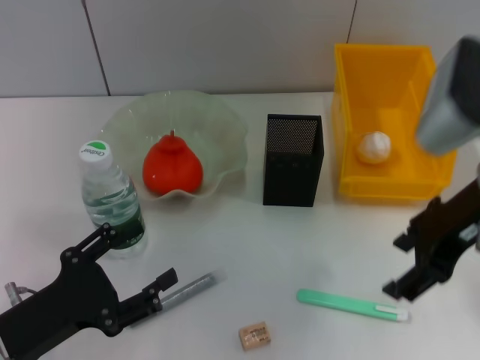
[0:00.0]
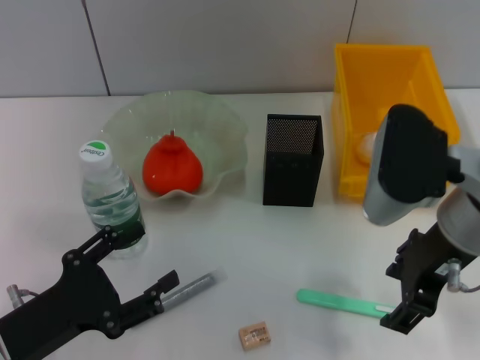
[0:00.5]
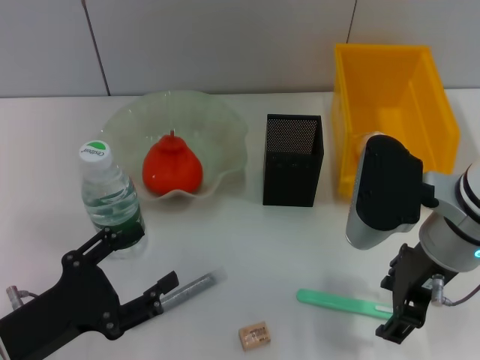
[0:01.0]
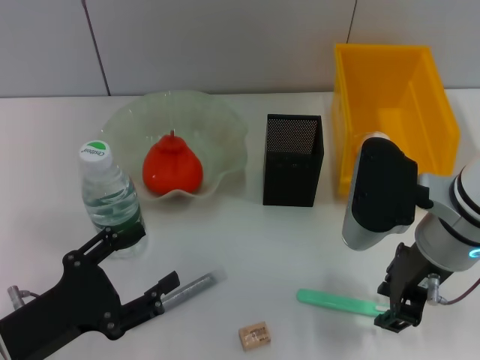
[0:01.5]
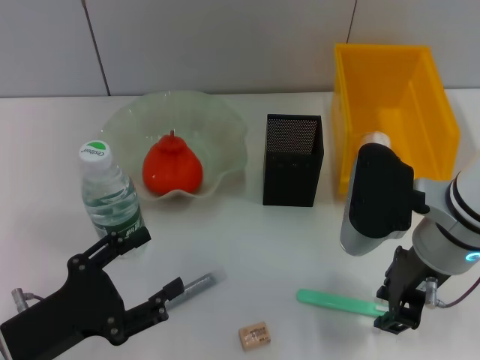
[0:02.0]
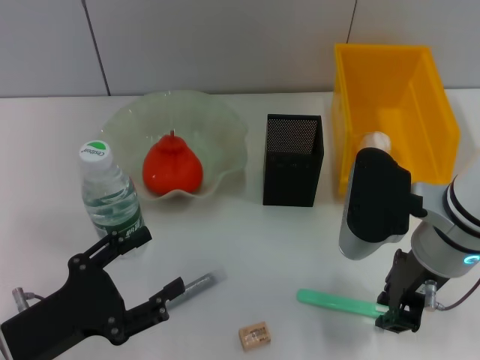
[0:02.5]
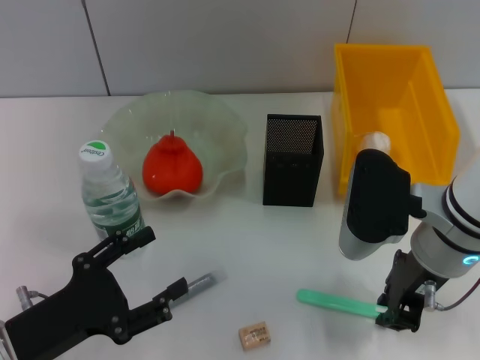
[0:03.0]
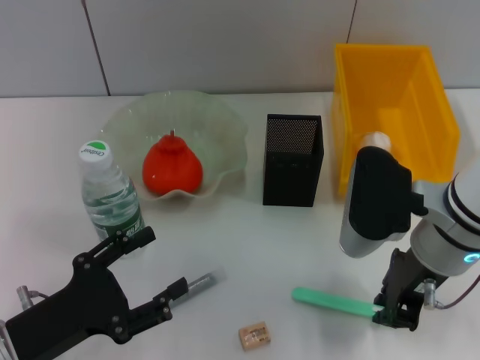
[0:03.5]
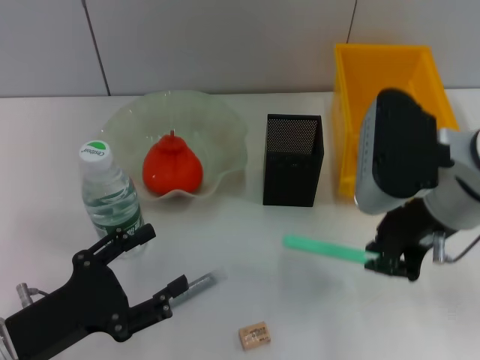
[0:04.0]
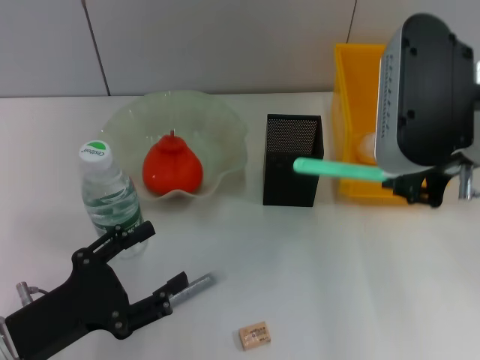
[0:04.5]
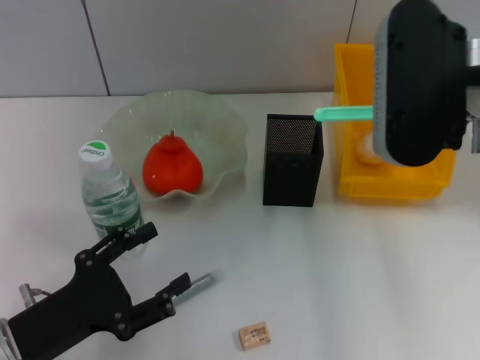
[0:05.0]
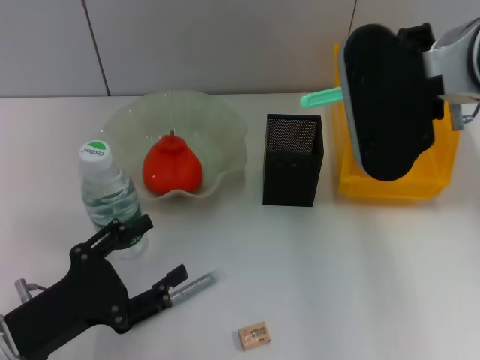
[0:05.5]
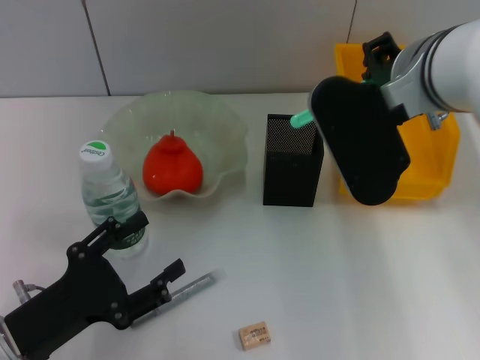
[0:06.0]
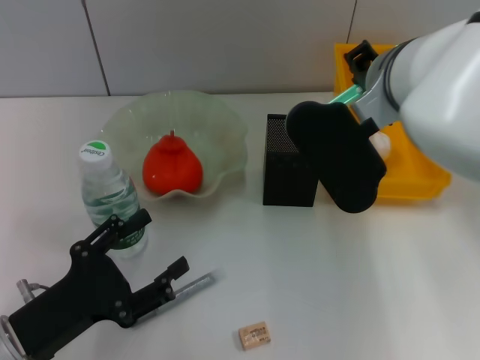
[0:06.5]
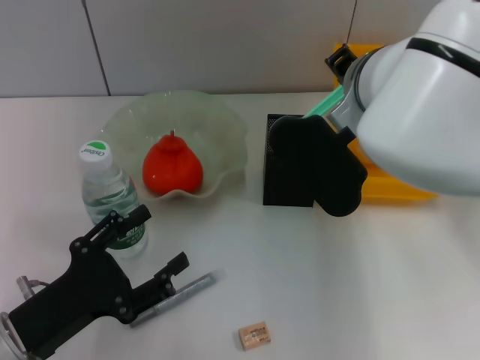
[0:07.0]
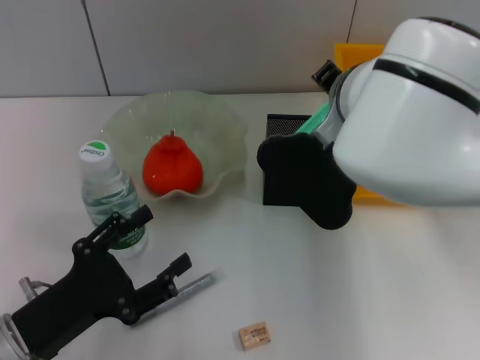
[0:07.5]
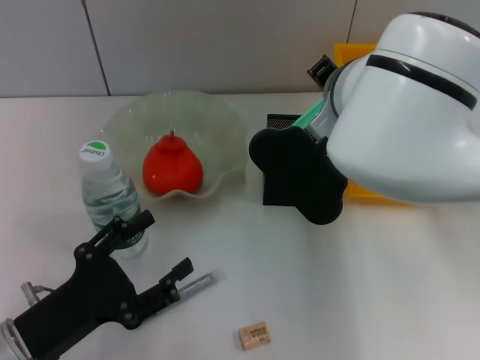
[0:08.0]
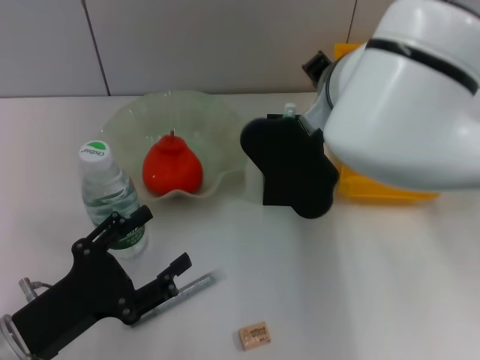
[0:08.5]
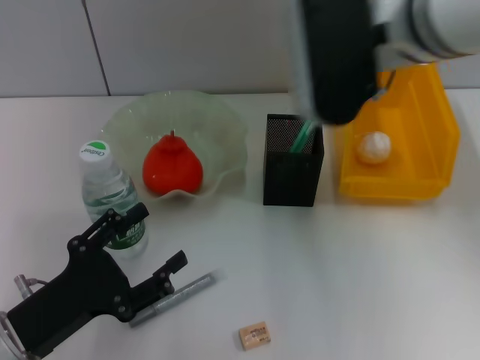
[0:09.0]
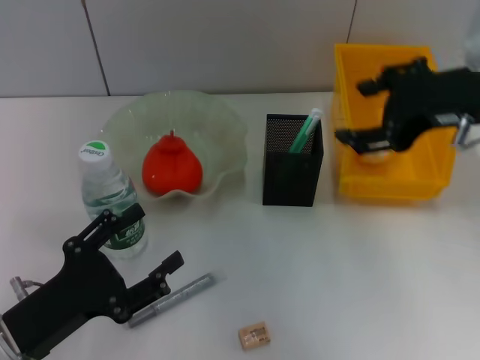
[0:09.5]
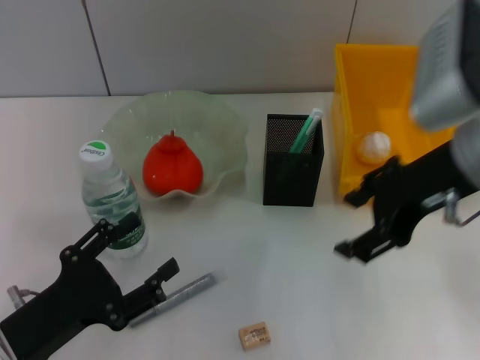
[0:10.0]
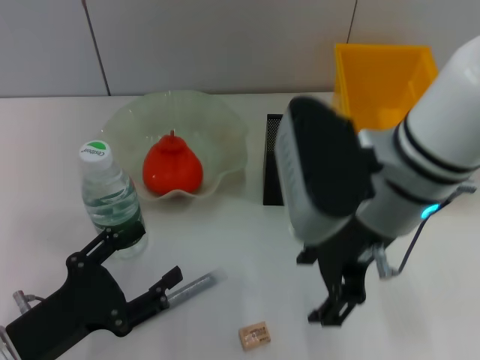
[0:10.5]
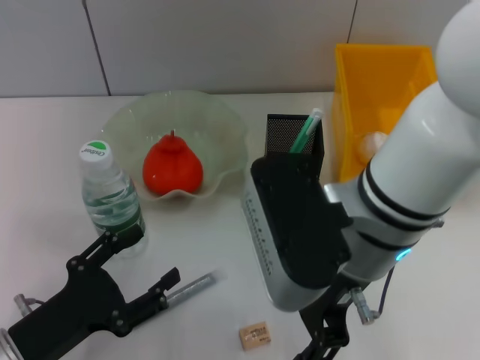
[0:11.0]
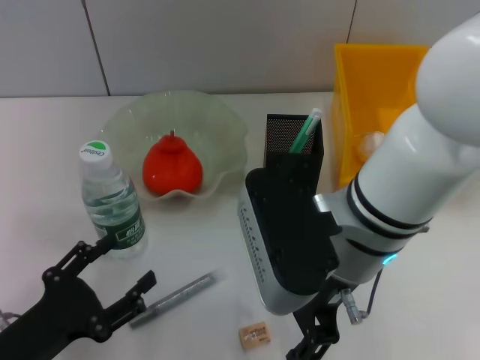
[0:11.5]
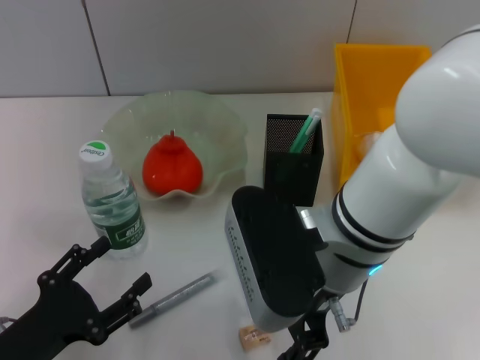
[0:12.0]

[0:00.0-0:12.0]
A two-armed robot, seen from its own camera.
Step, 0:00.0 to 0:03.0: Grab the blue utility knife with the right hand.
Step, 0:03.5 to 0:08.5: Place the blue utility knife into the pen holder with the right hand.
0:00.0 to 0:02.0: The right gripper travels downward by roughly 10 cm, and closes its fingers.
0:02.0 to 0:04.0: The right gripper shifts by approximately 5 cm, and closes up.
0:04.0 to 0:06.0: The right gripper ends up roughly 5 cm from where it was.
0:06.0 to 0:08.0: The right gripper travels to the left by some 5 cm.
0:08.0 to 0:10.0: The right gripper travels to the right by some 10 cm, and opens its fingers.
0:10.0 to 0:12.0: The right gripper shifts some 15 cm to the left and downward.

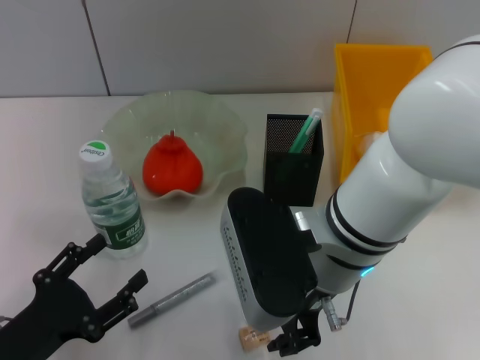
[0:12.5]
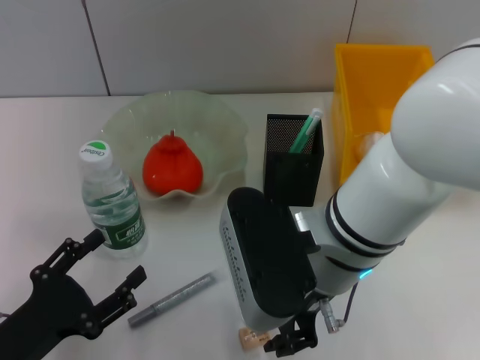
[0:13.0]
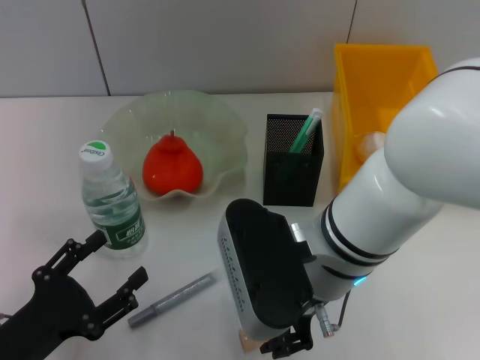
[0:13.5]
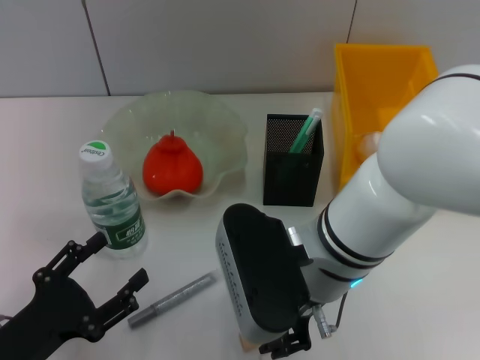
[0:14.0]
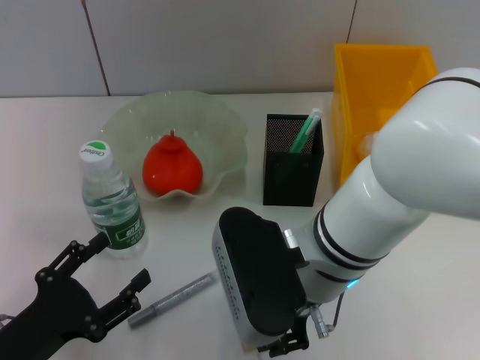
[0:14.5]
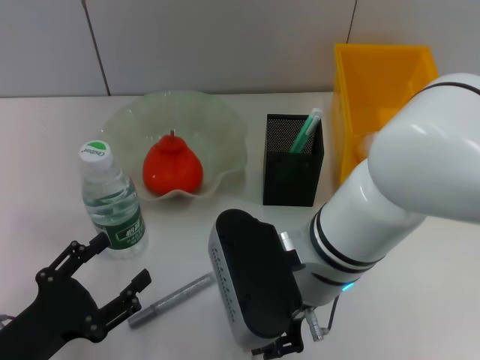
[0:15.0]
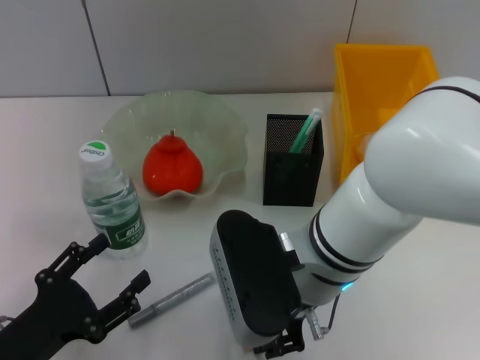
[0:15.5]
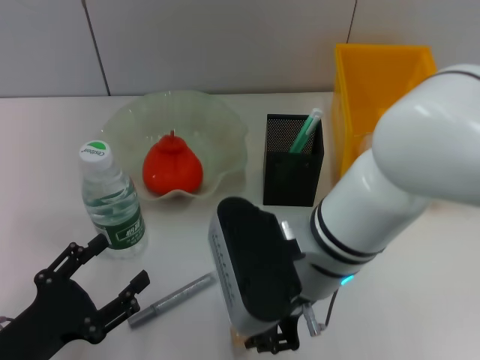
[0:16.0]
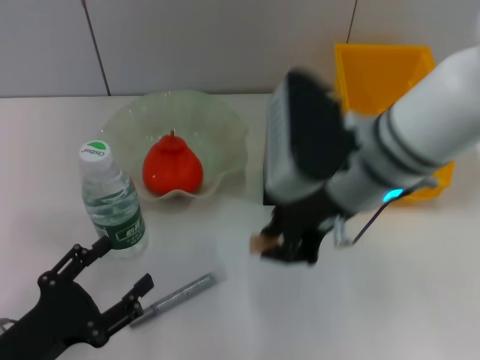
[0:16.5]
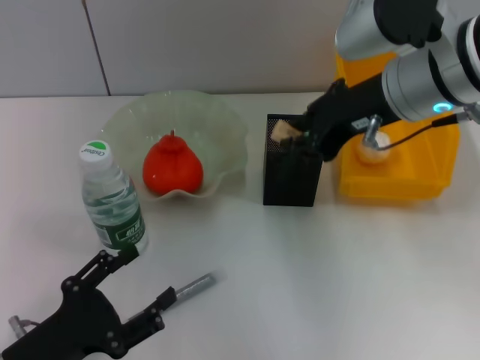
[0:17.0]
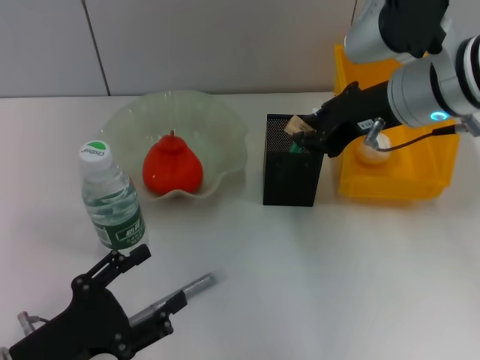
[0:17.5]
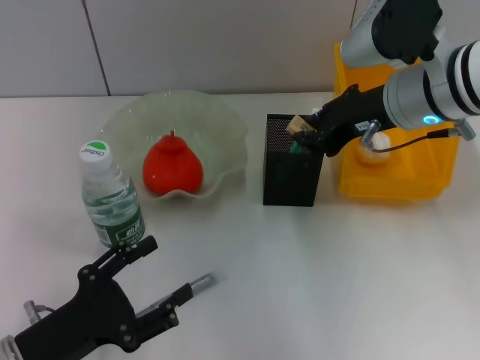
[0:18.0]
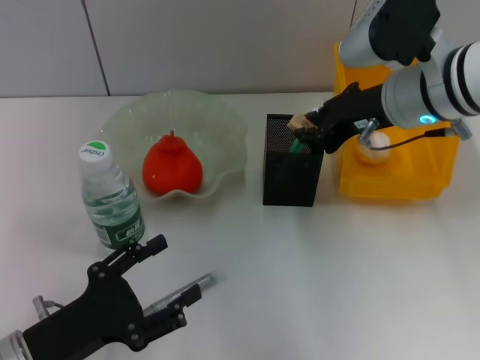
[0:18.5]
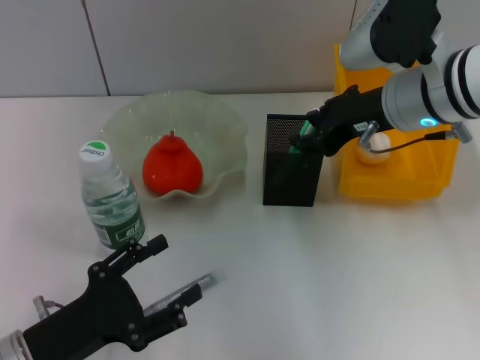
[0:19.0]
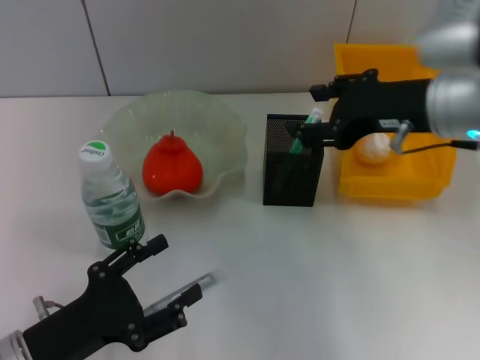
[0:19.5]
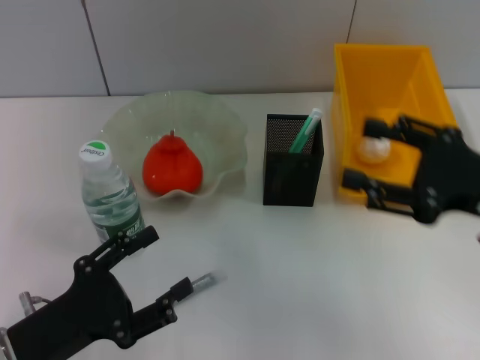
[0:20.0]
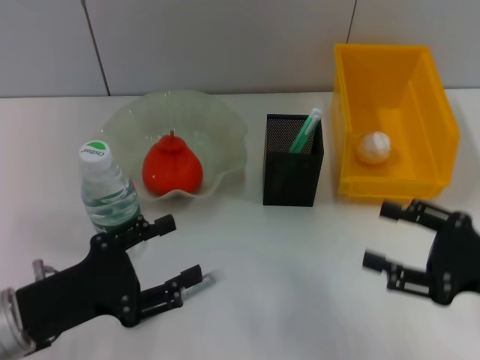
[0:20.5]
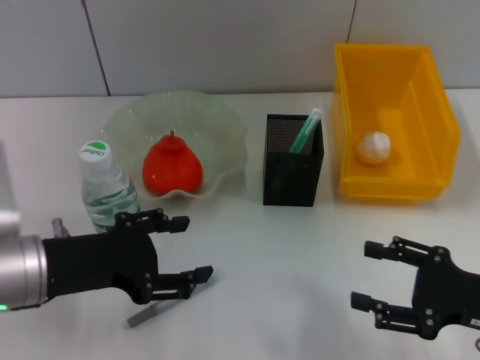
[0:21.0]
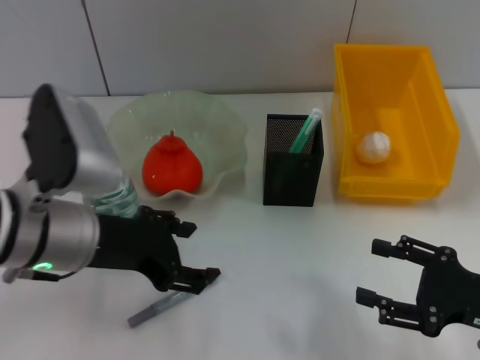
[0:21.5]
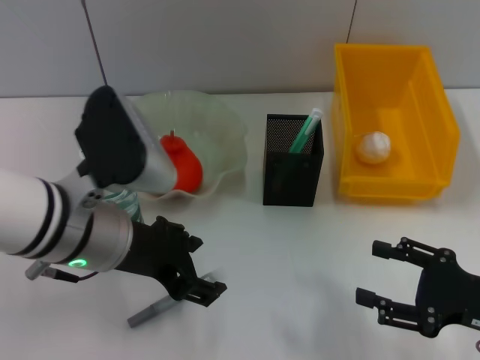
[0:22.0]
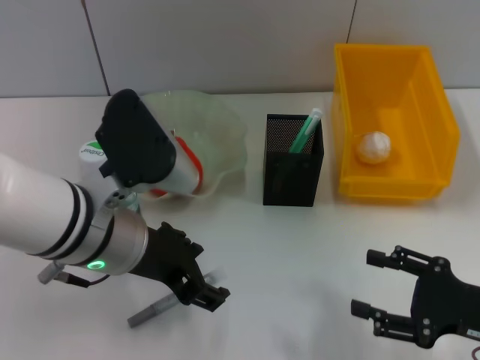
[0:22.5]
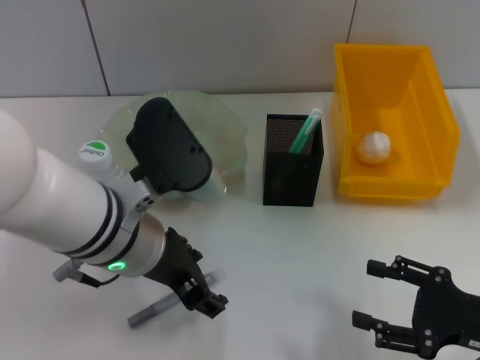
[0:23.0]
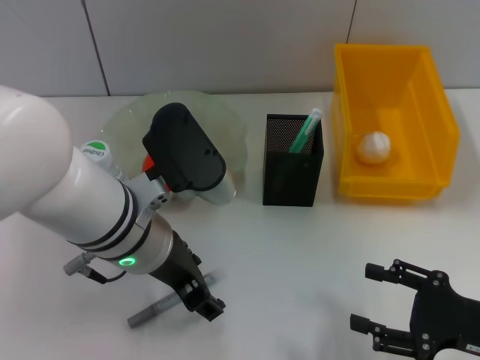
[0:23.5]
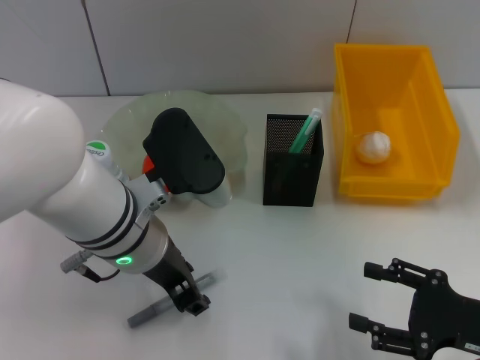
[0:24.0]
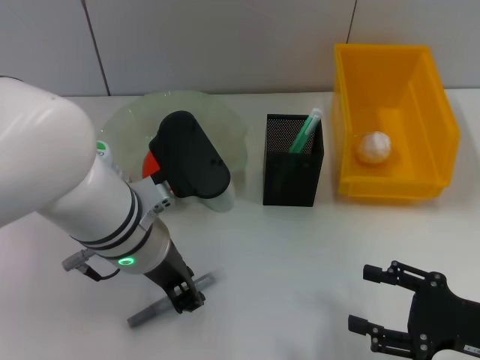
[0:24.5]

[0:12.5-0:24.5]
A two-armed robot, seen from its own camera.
Step, 0:12.5 to 0:15.5: Grab the eraser with the right hand.
Step, 0:16.0 to 0:18.5: Put the eraser into the pen holder with the right hand.
0:12.5 to 0:14.5: The right gripper closes.
0:14.5 to 0:16.5: The right gripper is displaced upward by some 5 cm.
0:16.5 to 0:18.5: The right gripper goes about 10 cm to the right and forward.
0:18.5 to 0:20.5: The right gripper moves backward, to the right and downward, about 25 cm, and opens up.
0:20.5 to 0:22.5: The left gripper is displaced to the right, upward and forward by some 15 cm.
0:22.5 to 0:24.5: The left gripper closes its fingers.

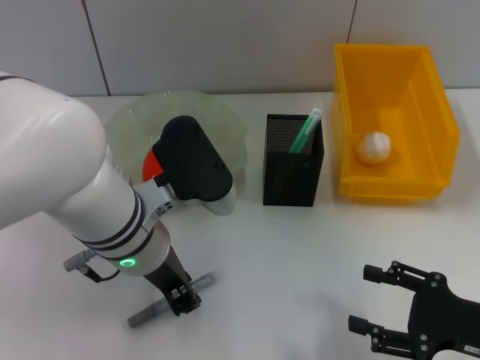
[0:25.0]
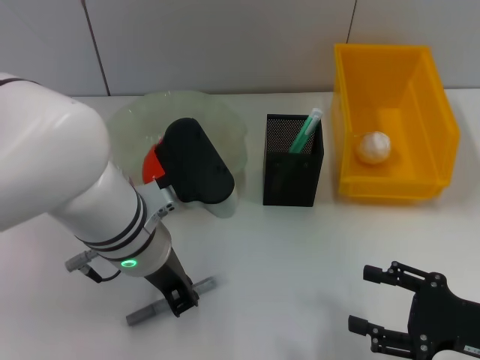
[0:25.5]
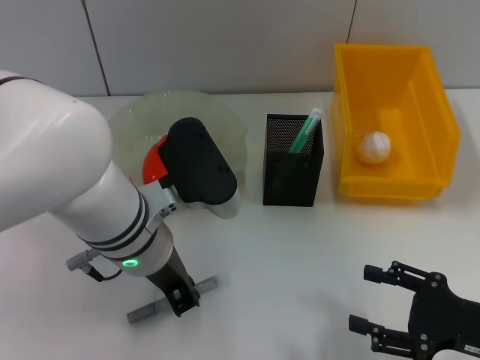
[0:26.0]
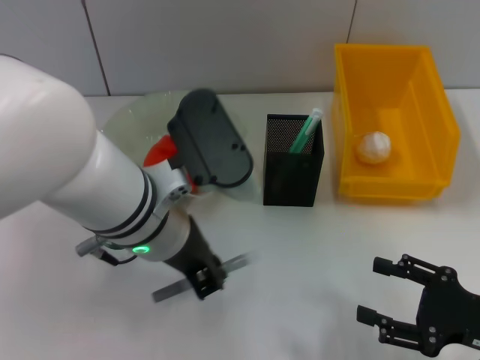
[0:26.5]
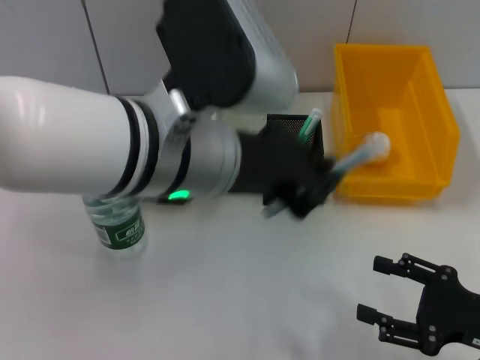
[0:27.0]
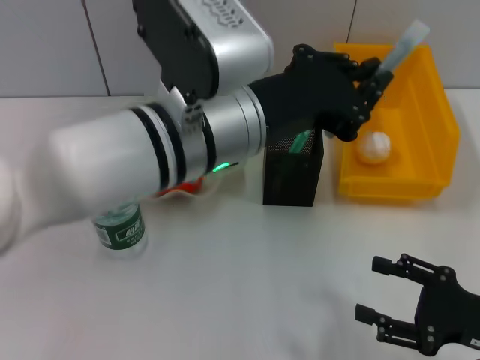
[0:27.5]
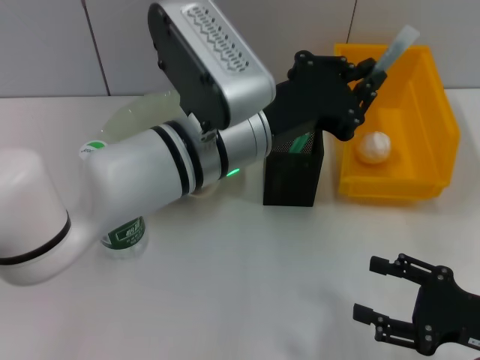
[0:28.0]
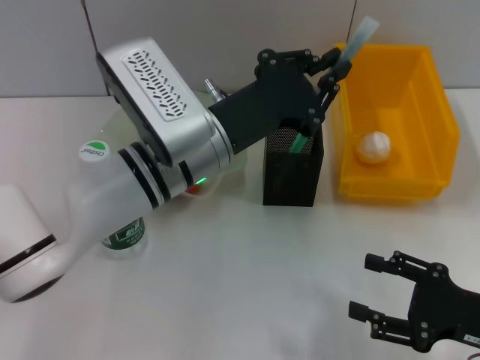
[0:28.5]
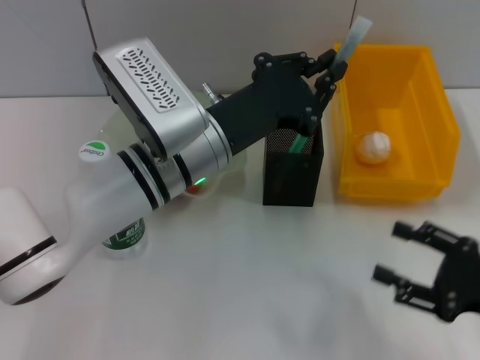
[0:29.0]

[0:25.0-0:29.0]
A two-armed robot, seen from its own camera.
0:25.0 to 0:27.0: The left gripper moves upward, roughly 10 cm.
0:27.0 to 0:29.0: The left gripper is displaced downward and forward by roughly 10 cm.
